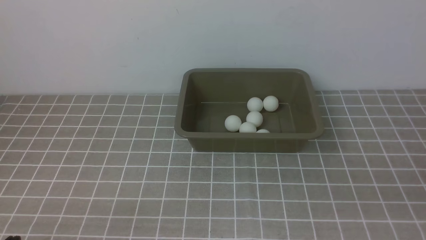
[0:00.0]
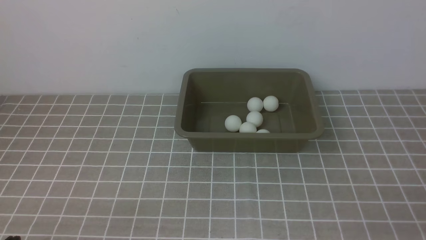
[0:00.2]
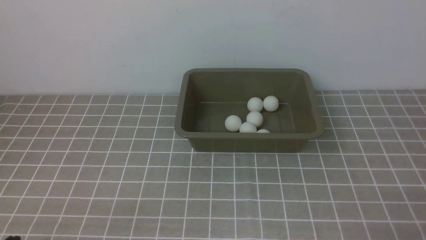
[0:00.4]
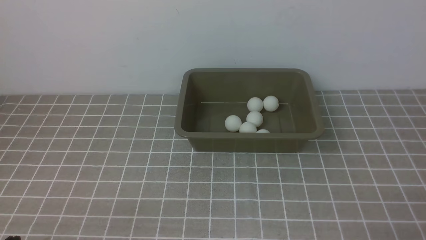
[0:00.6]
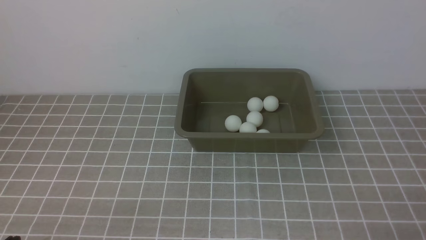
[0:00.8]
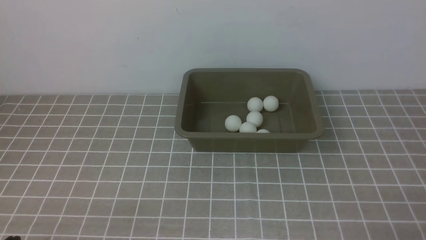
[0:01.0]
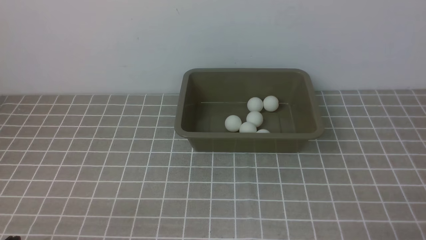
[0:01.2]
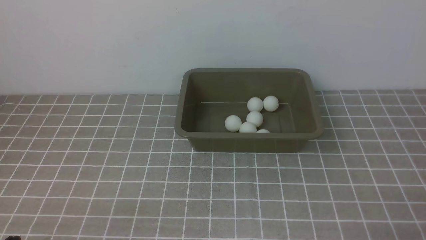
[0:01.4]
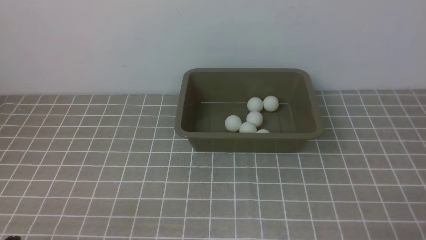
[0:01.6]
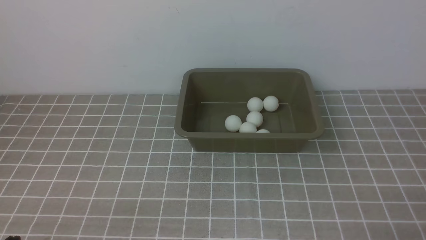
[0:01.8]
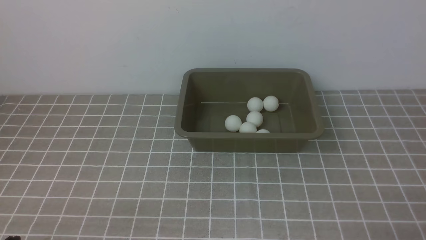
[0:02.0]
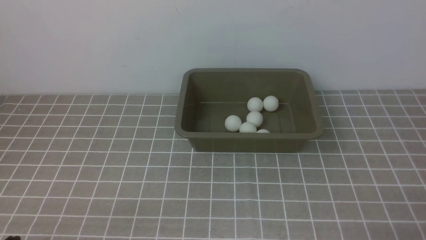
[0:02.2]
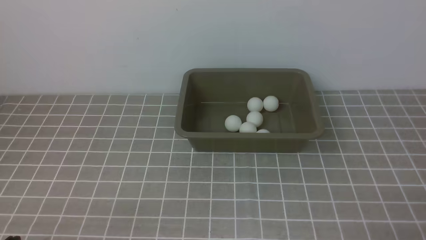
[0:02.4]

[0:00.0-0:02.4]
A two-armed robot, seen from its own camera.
0:01.2 to 0:02.4: Neither gripper changes place.

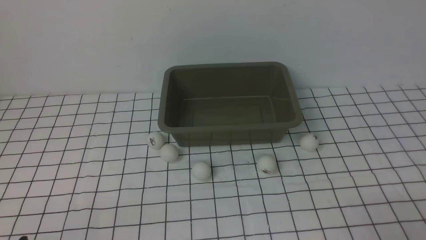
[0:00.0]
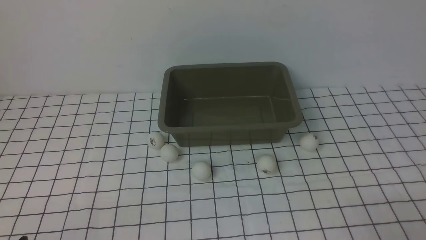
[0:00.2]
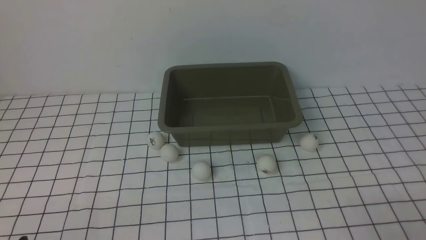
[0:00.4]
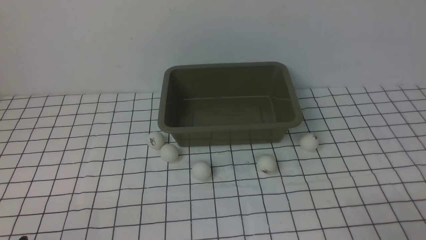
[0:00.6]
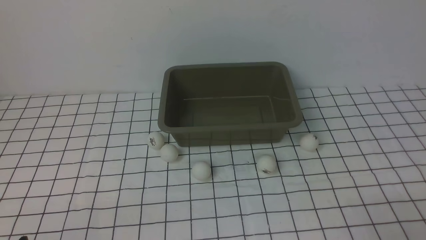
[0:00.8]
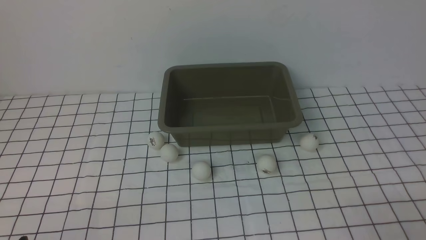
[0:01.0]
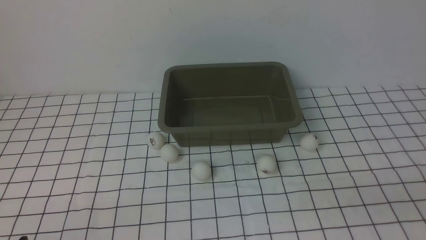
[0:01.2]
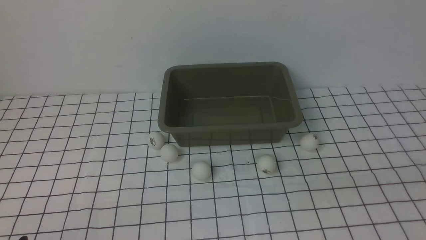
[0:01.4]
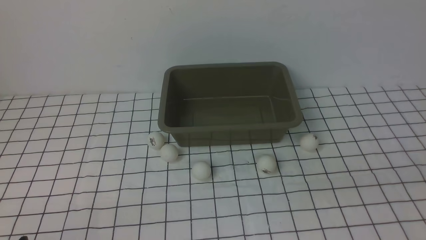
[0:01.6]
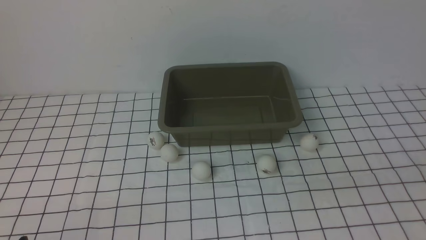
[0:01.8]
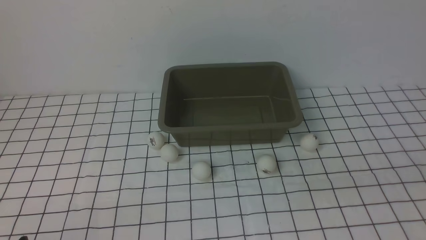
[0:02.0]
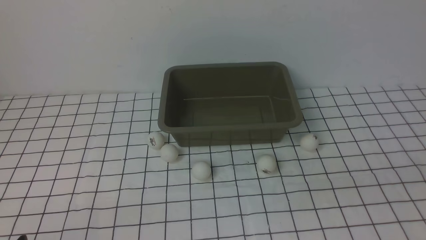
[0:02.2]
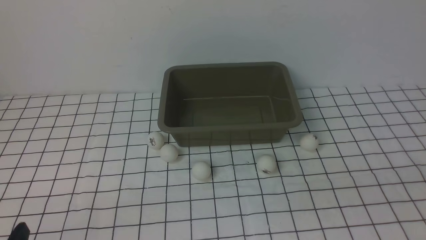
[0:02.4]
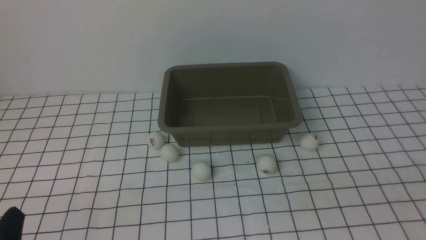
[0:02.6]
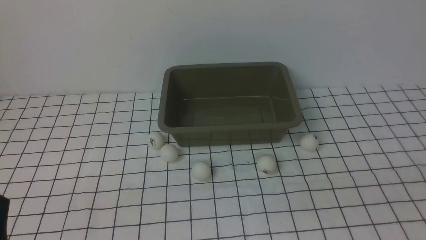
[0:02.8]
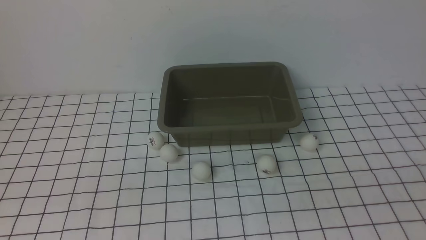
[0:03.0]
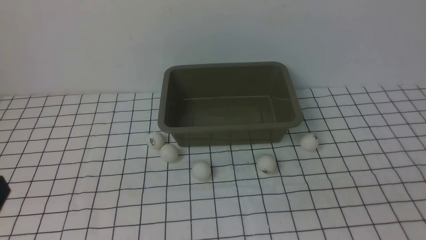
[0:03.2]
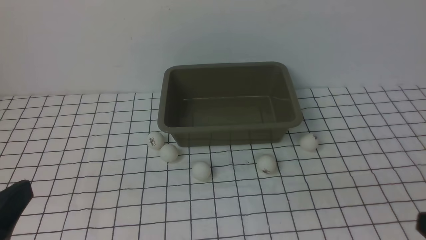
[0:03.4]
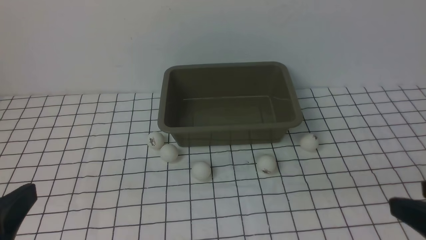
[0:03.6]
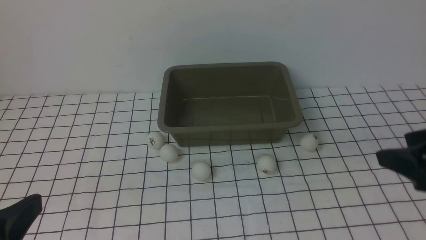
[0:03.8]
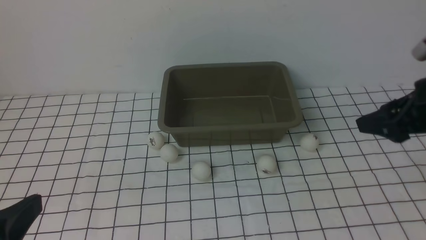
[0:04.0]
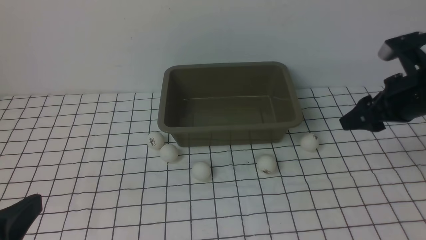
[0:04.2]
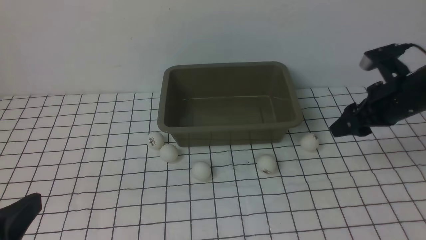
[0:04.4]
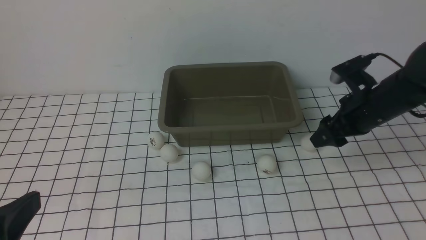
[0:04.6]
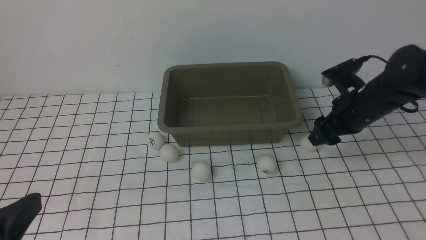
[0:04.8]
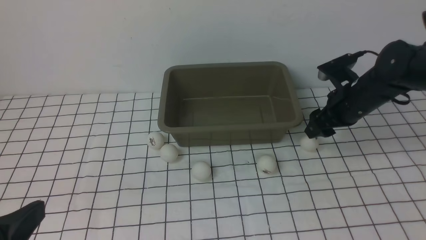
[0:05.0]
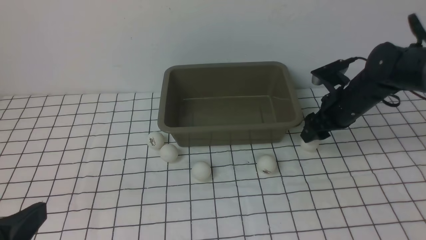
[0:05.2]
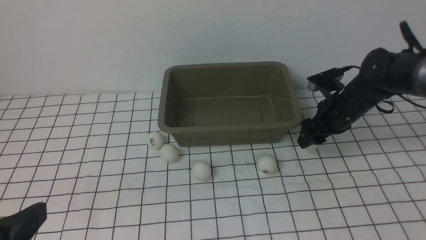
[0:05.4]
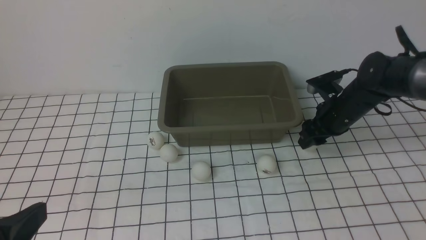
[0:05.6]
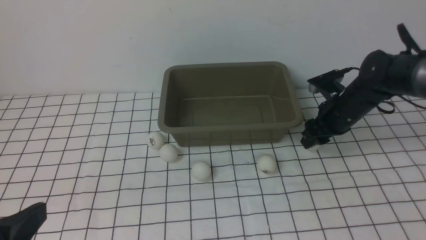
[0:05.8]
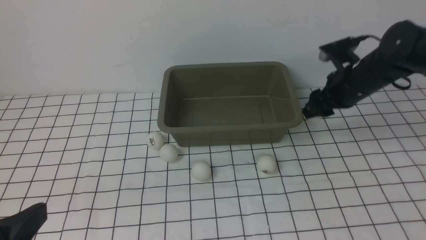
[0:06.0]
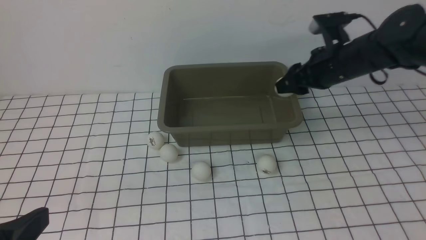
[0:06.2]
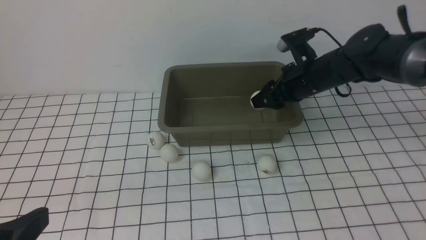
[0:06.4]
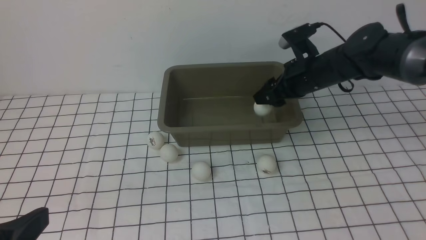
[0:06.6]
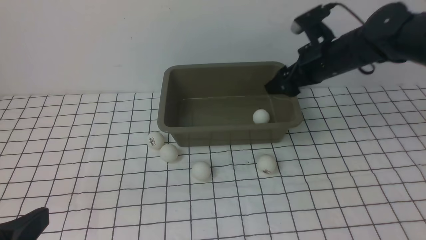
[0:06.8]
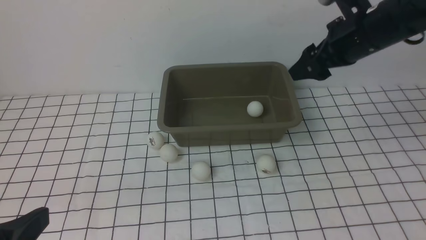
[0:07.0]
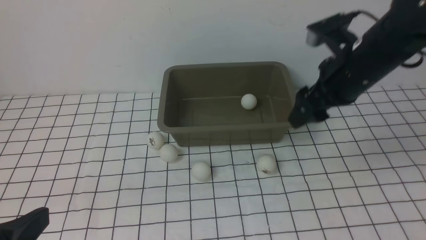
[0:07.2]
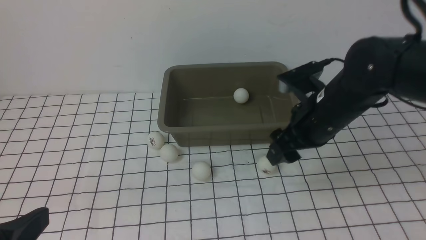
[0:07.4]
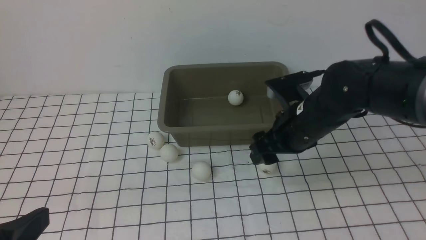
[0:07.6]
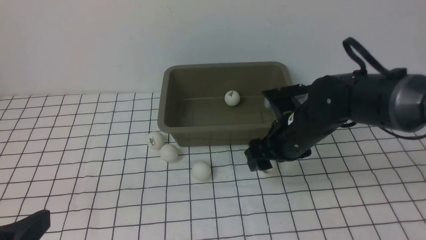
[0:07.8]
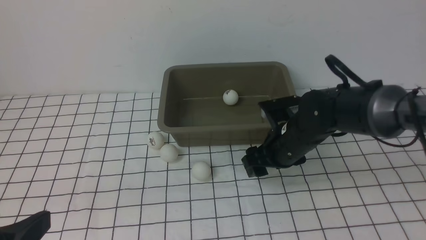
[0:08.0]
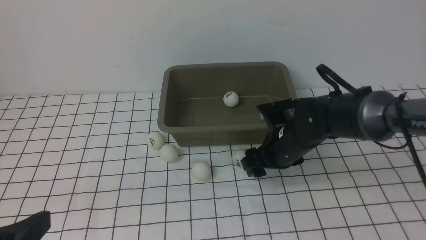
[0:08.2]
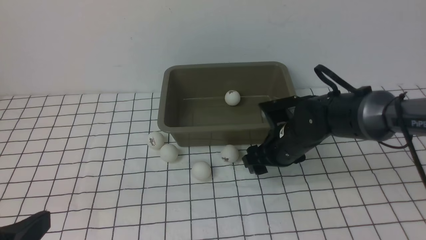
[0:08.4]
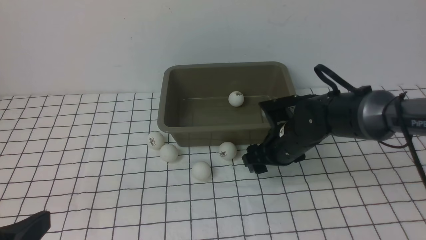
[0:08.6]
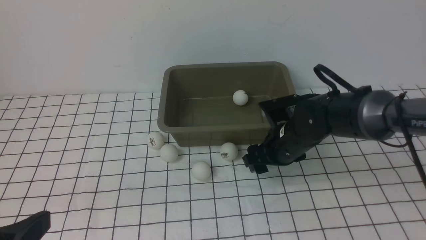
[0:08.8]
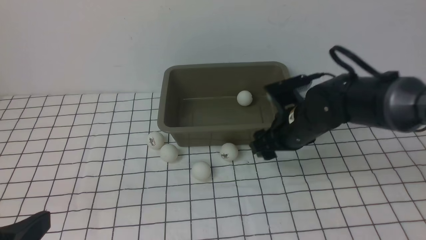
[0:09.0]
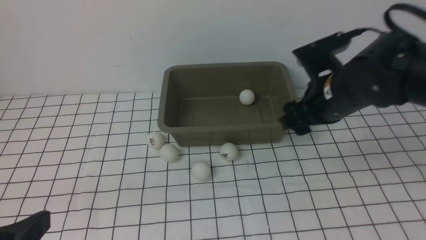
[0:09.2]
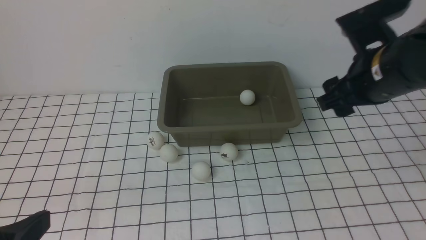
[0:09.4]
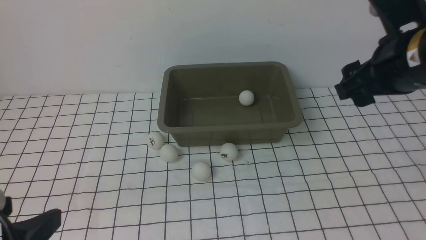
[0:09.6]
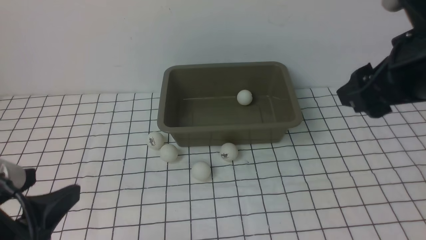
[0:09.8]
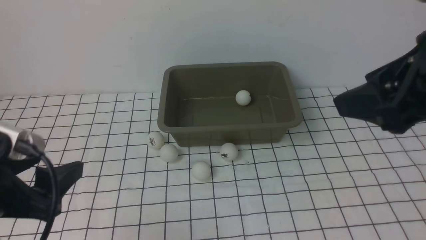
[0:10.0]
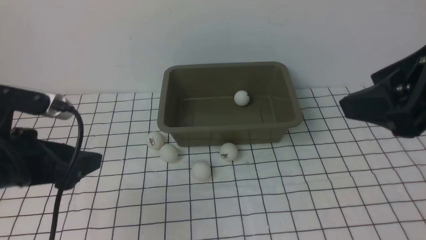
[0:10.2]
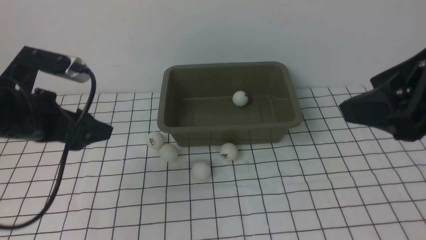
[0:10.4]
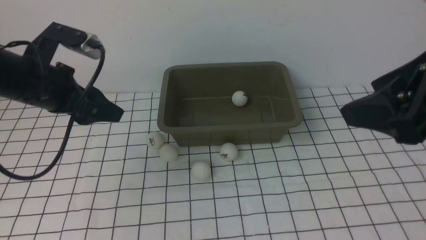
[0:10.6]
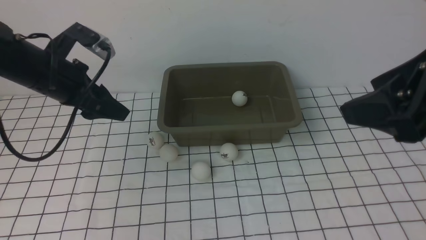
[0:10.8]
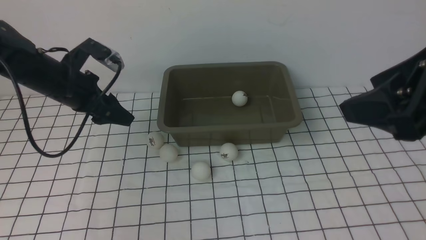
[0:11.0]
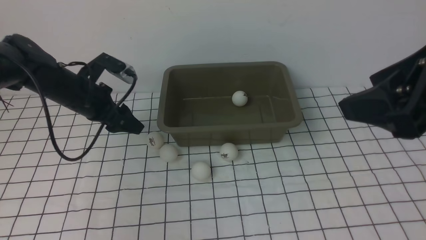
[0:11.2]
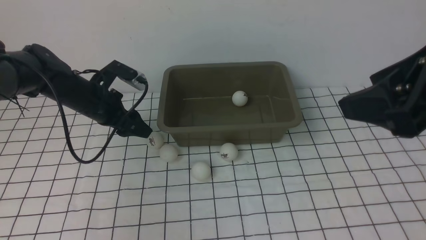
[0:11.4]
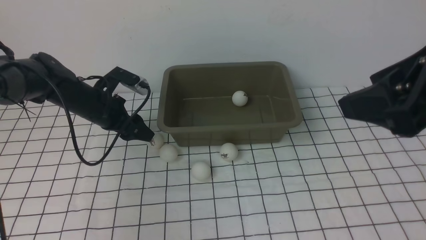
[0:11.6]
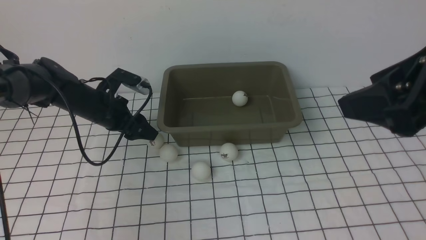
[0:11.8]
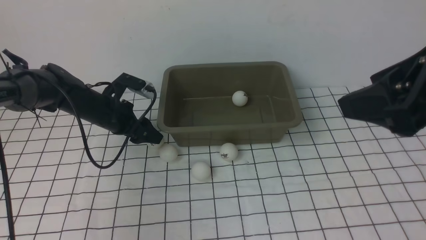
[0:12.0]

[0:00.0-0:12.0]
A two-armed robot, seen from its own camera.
Step, 0:00.0 to 0:06.0: use the right arm to clamp the table tennis ball closest to it.
Step, 0:06.2 to 0:06.8: use the right arm to put the table tennis ball into the box.
0:03.0 to 0:04.4: The left gripper changes place by about 5 cm, while the right gripper shifts roughly 35 cm forward.
0:04.4 to 0:06.0: The right gripper is displaced forward by some 5 cm.
0:06.0 to 0:07.6: The right gripper shifts roughly 15 cm backward and to the left, and opens its fingers.
0:07.6 to 0:09.0: The right gripper travels downward and back again, some 5 cm each way.
0:09.0 to 0:10.4: The left gripper heads forward, covering about 20 cm, while the right gripper goes some 25 cm upward and backward, and closes up.
0:10.4 to 0:12.0: The left gripper shifts about 25 cm forward and downward.

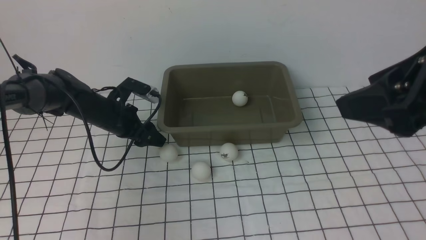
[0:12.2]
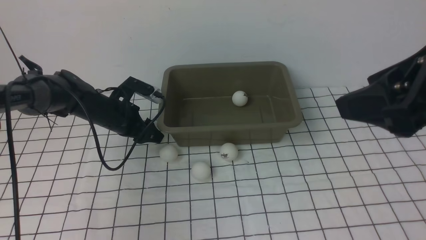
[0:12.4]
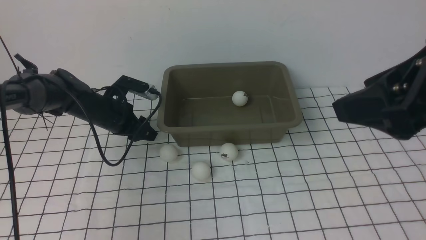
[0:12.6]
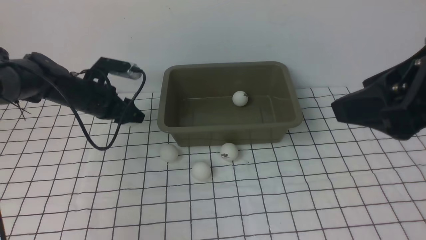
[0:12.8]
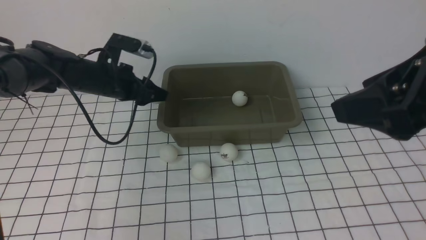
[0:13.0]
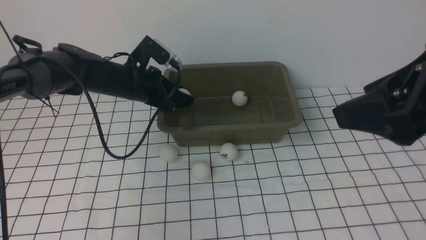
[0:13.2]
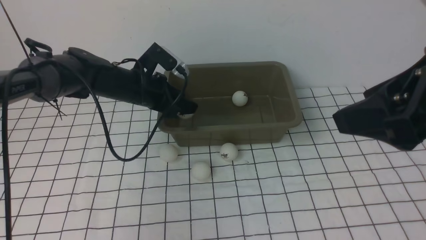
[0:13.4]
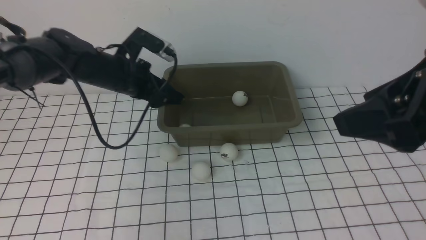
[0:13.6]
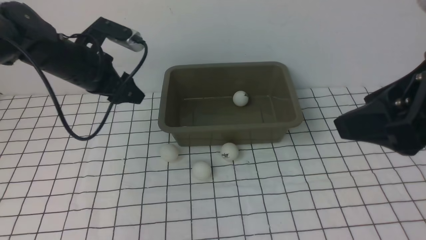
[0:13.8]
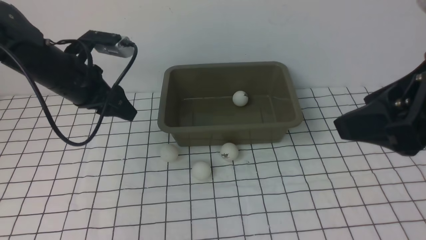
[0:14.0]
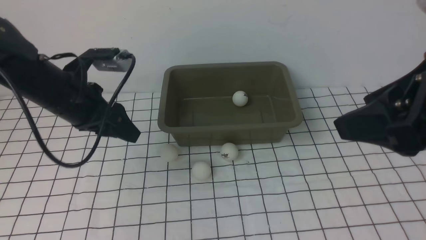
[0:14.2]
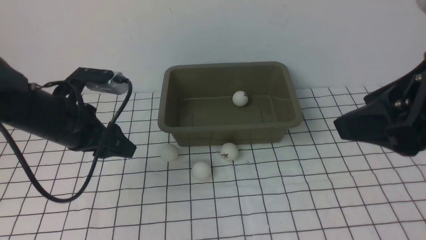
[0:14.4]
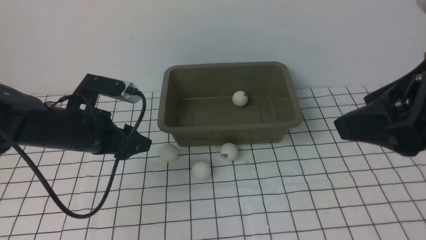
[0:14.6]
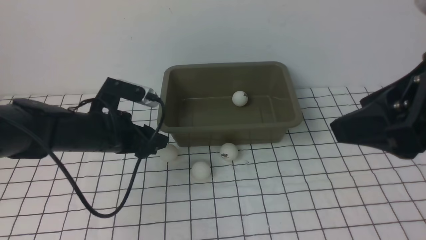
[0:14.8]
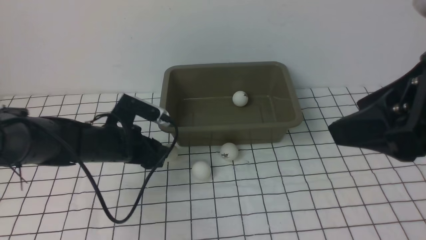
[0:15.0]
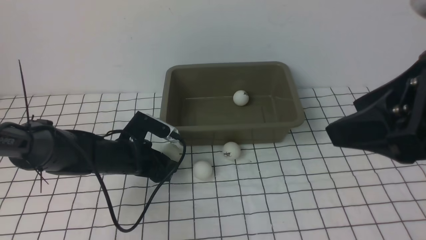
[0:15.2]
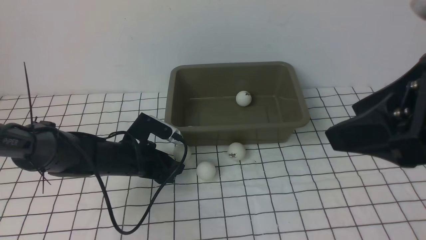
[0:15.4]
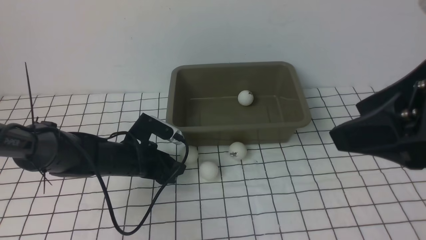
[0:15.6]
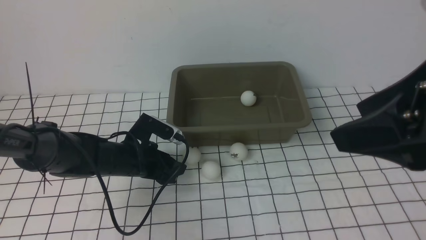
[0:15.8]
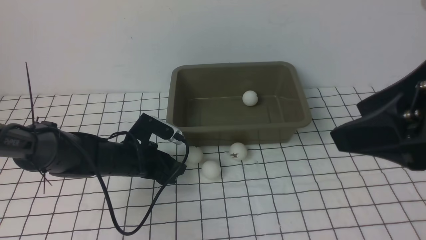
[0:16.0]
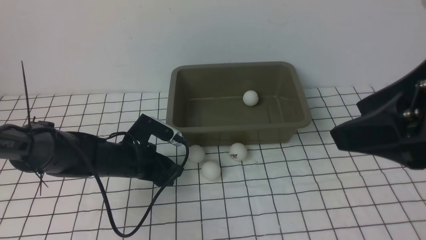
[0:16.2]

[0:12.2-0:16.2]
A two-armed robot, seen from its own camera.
Step, 0:13.0 to 0:13.6: use the left arm to put the table tennis ball into the box.
0:12.2 to 0:13.6: The left gripper moves upward, roughly 10 cm.
0:13.6 to 0:14.8: The left gripper travels backward by roughly 10 cm.
0:14.8 to 0:16.2: The left gripper is displaced downward by some 10 cm.
